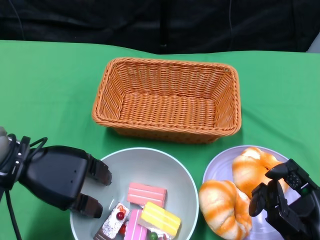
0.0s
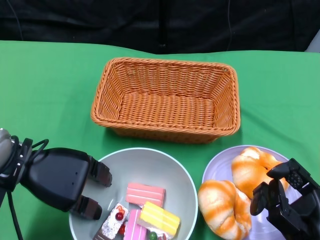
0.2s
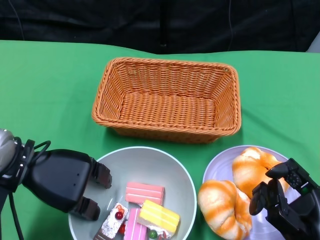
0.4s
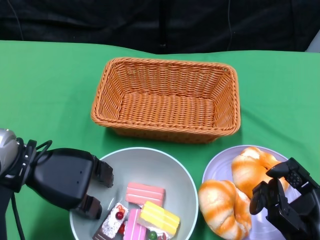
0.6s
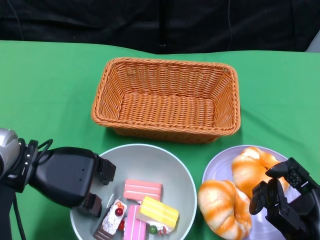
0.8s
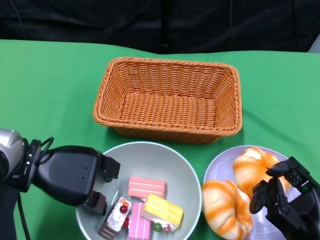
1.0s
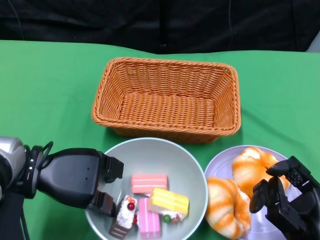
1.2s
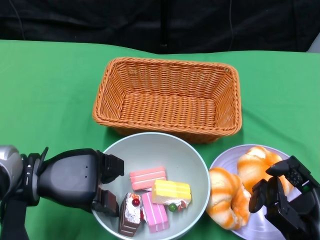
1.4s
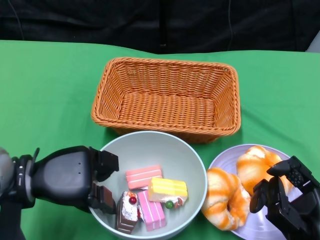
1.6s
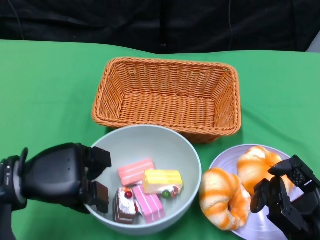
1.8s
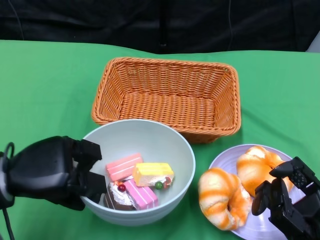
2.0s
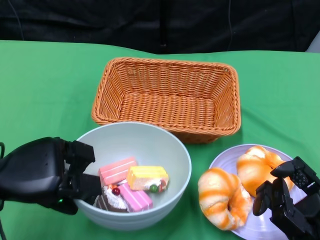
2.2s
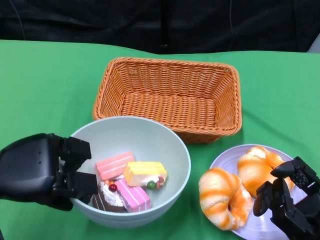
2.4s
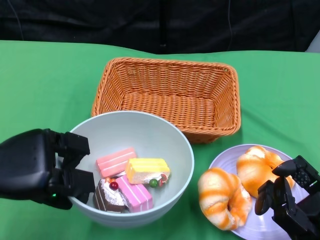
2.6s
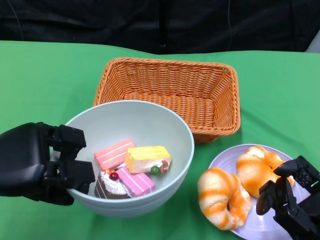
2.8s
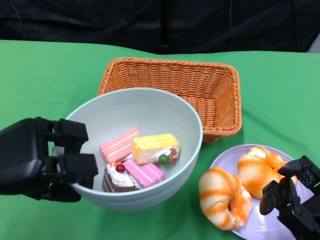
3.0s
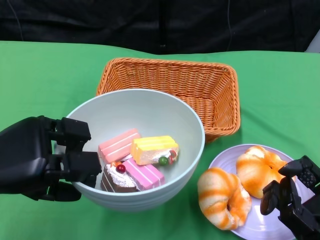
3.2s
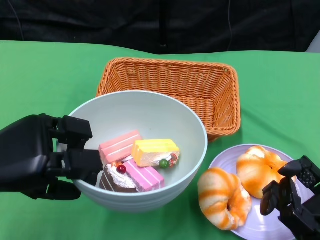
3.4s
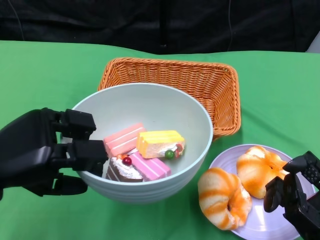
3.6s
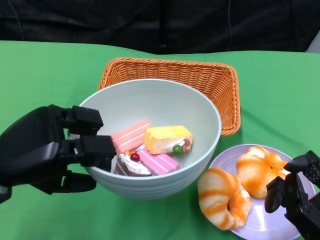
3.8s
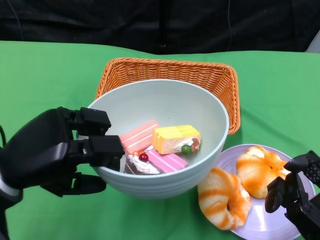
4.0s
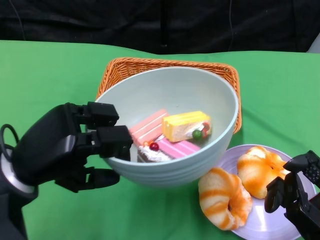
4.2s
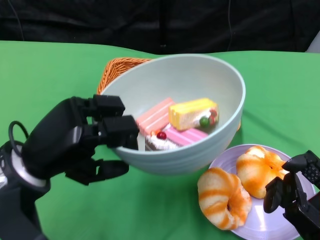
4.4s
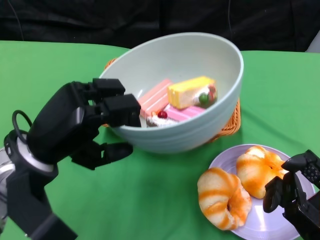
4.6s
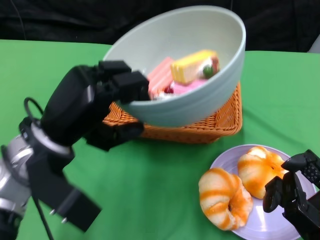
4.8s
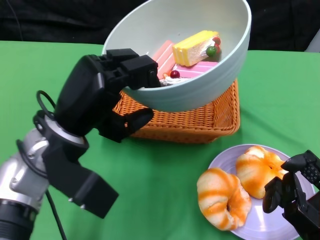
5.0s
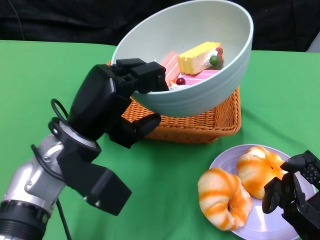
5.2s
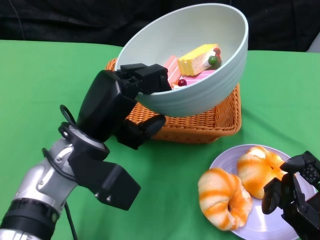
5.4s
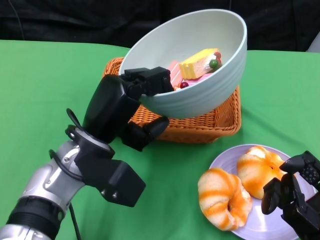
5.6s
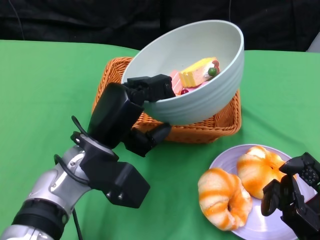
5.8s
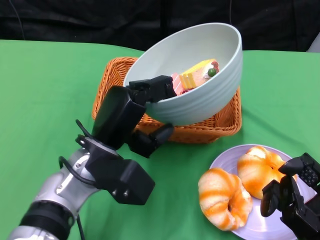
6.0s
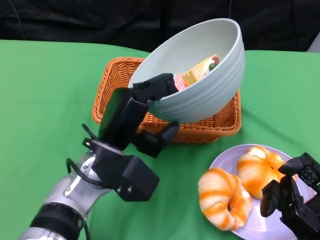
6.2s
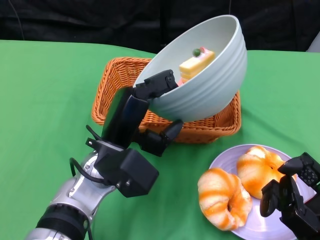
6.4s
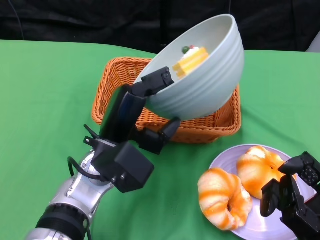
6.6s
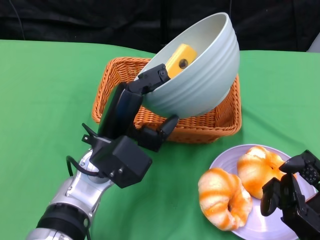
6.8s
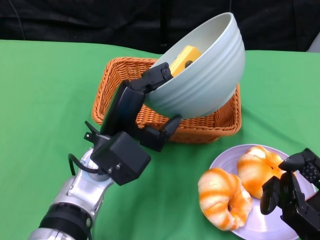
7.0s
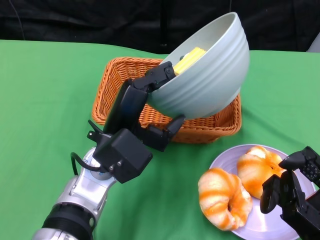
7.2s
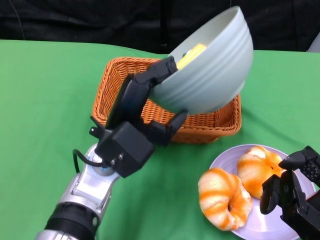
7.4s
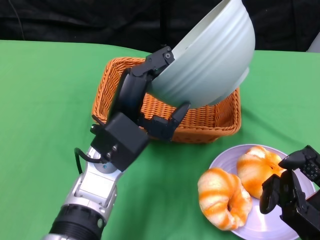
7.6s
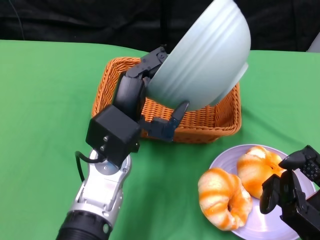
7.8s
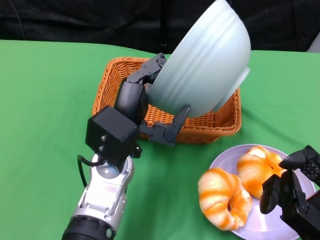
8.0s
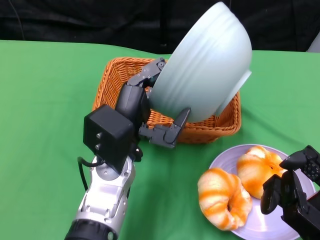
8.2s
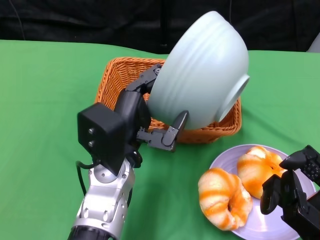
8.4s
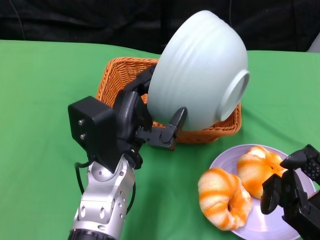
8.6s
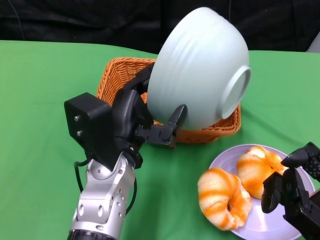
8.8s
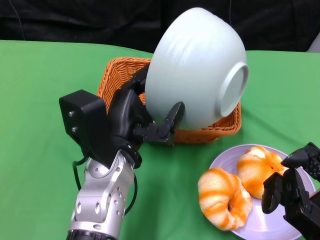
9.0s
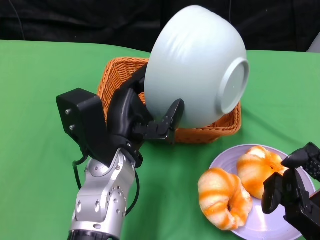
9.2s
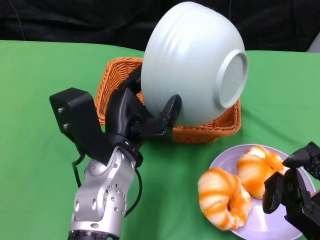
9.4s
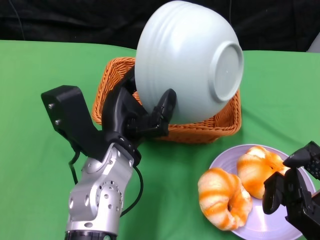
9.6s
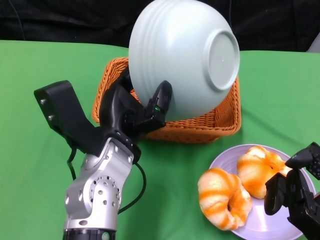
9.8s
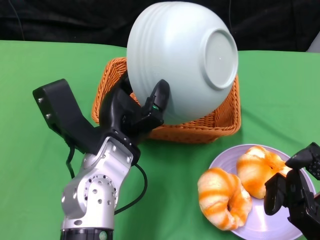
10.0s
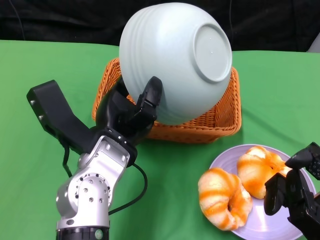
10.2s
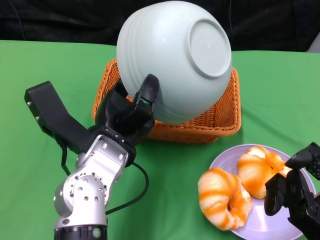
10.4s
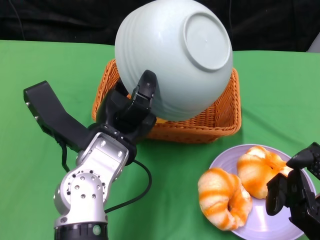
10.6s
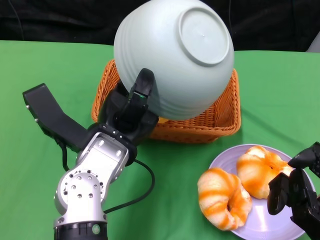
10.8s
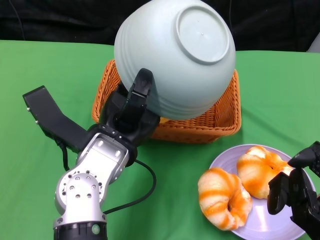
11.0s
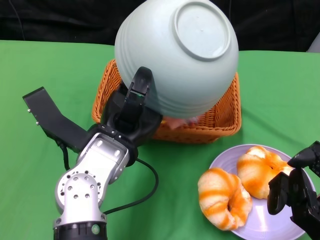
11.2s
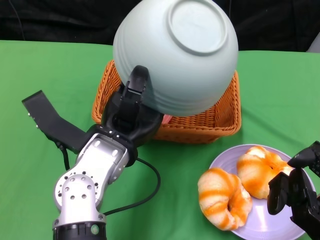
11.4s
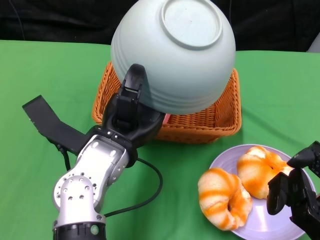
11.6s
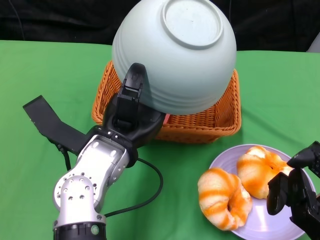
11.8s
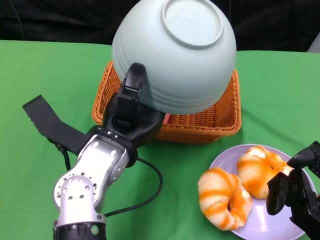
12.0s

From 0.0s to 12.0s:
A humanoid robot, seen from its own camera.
From 1.6s to 3.0s: The left hand travels upward by roughly 10 cm.
From 3.0s to 4.4s: The left hand goes about 5 cm to the right.
From 4.4s to 6.0s: The left hand goes roughly 10 cm to the right.

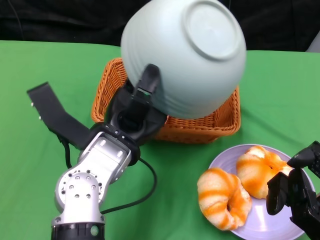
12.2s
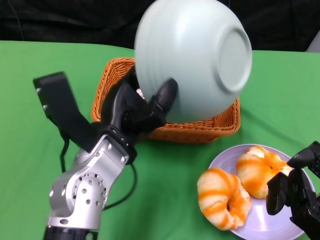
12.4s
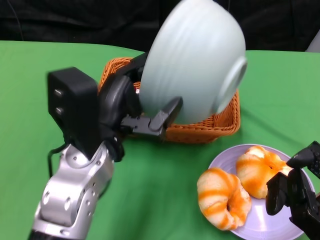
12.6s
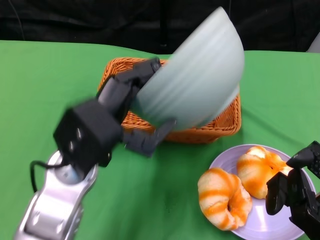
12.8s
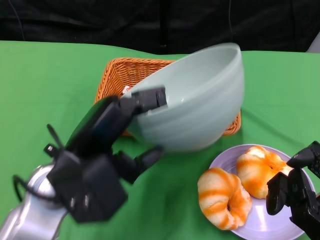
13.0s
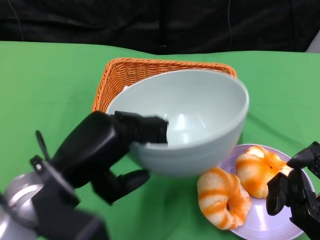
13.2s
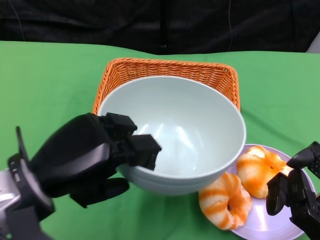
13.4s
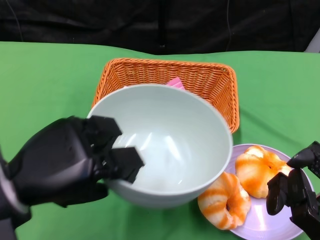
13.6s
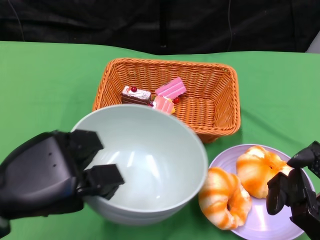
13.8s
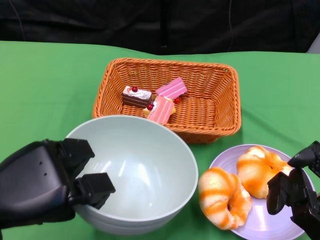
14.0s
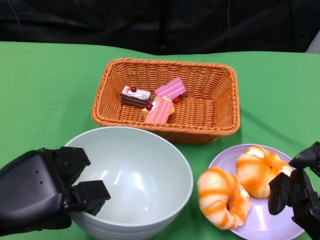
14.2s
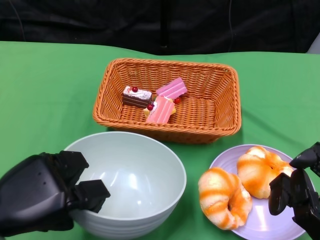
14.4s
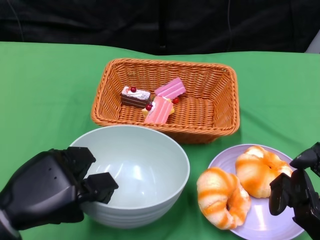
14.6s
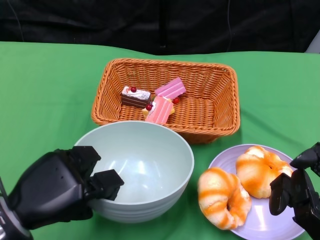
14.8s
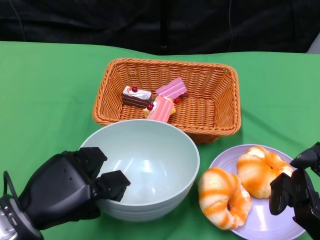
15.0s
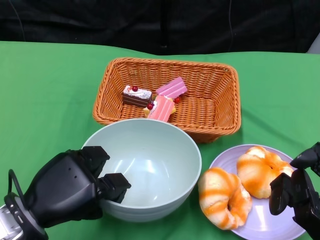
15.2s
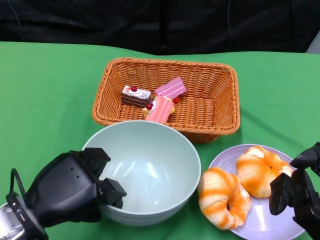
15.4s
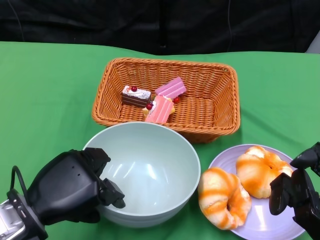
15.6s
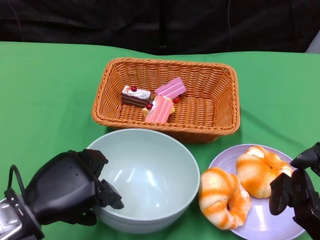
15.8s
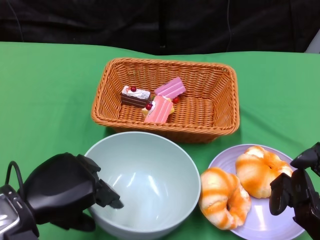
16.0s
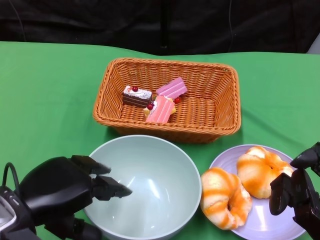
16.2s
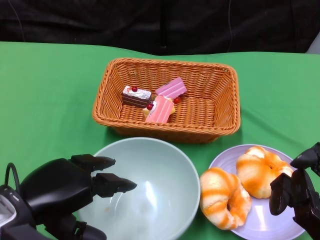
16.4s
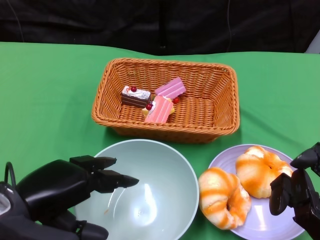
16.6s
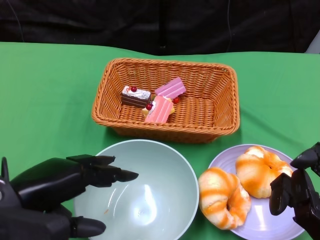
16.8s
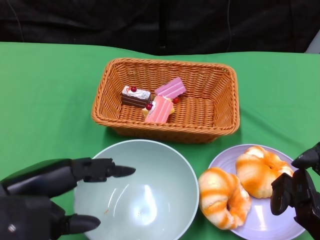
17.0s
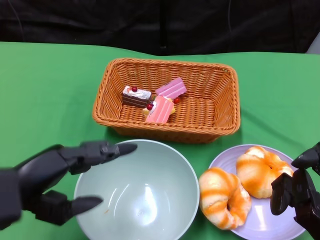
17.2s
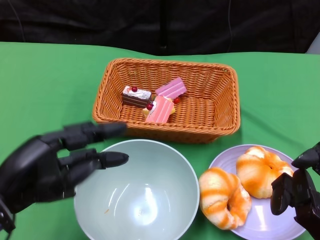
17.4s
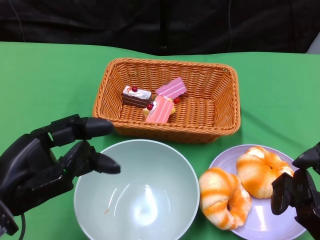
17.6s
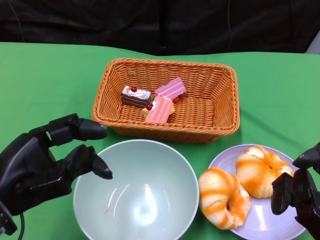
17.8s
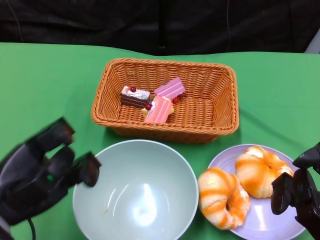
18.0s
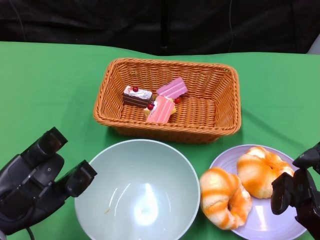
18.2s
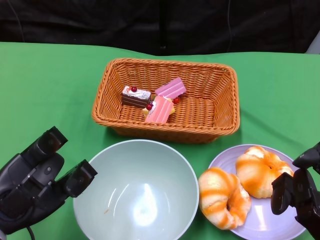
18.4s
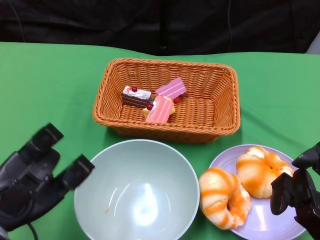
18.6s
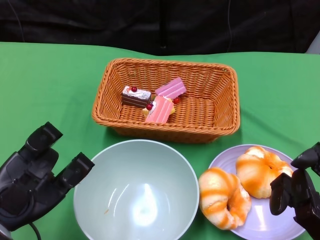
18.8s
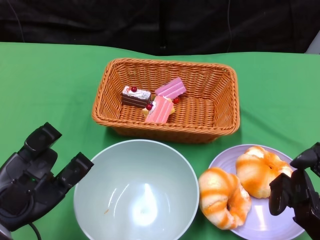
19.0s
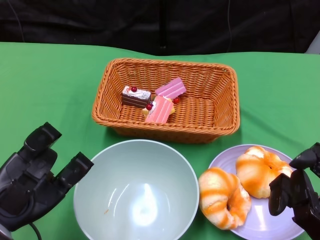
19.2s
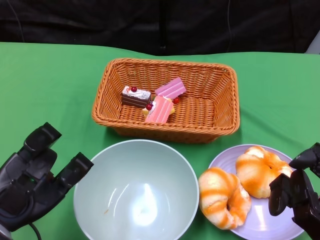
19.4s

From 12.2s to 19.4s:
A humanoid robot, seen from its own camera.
Step, from 12.4s to 16.6s: Place the bowl on the table with the left gripper.
From 12.2s to 13.6s: The left hand travels to the left and backward by approximately 15 cm.
From 13.6s to 15.0s: The left hand goes roughly 10 cm downward.
From 18.0s to 19.4s: The hands stay close to where they were, moving slightly.

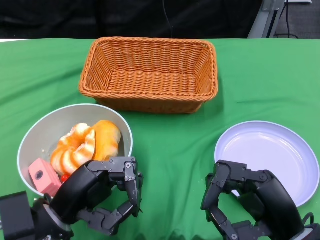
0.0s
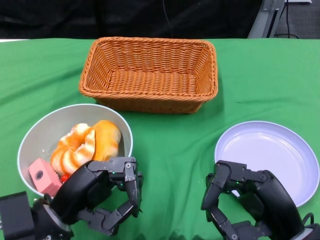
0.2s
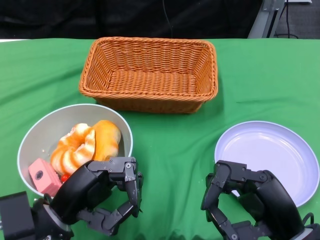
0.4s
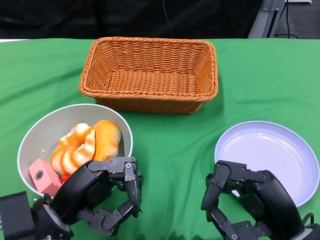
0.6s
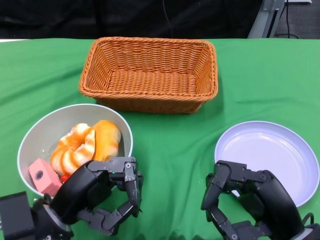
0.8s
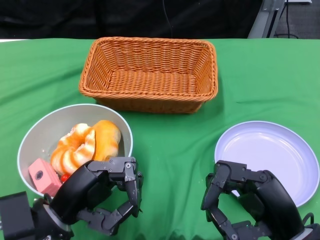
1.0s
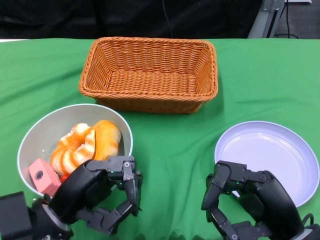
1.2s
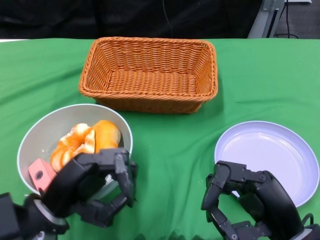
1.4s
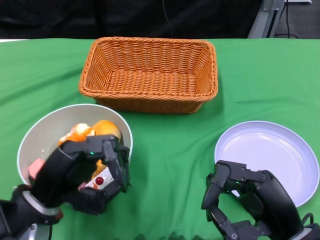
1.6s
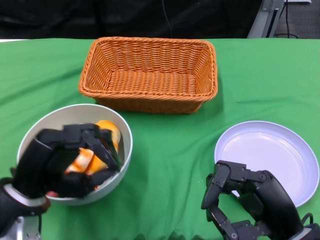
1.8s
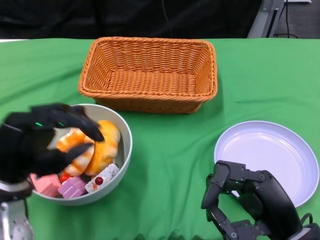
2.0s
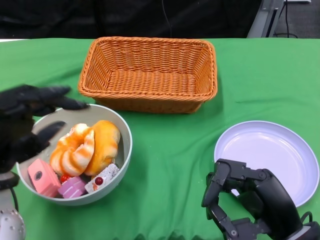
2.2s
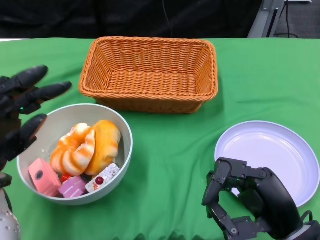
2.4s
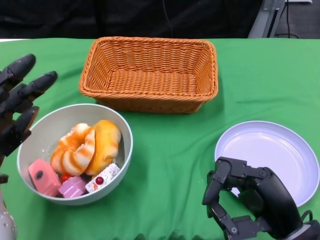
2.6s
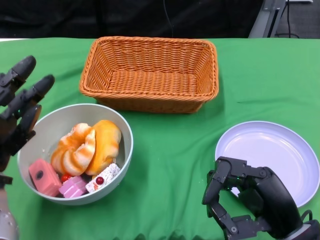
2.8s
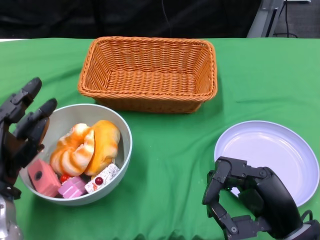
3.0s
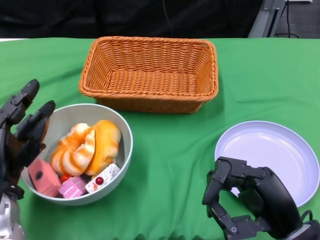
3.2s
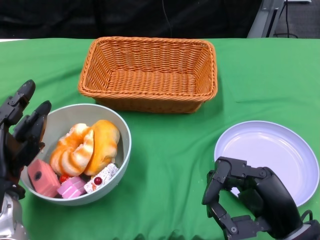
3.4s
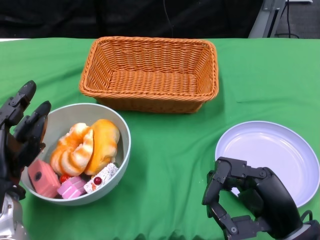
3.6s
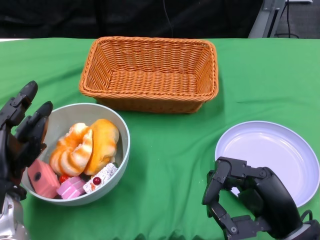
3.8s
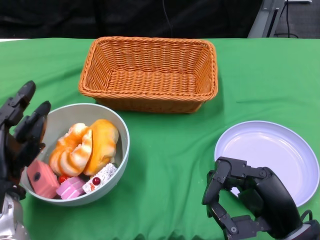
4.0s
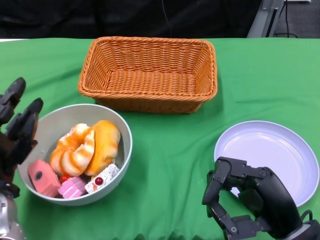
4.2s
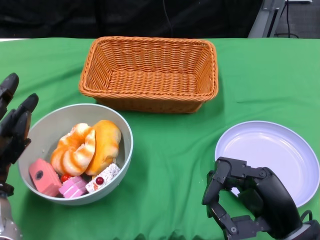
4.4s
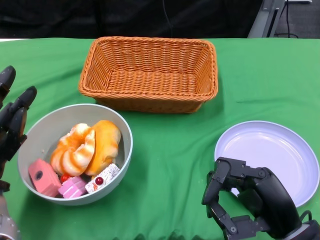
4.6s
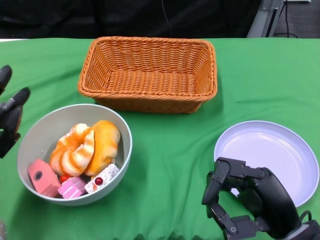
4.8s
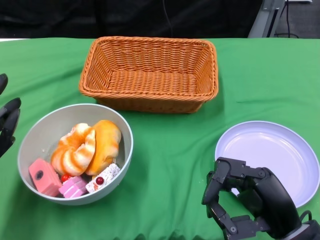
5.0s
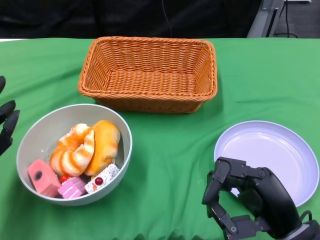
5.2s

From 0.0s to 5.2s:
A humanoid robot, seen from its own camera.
From 1.8s to 3.4s: The left hand shifts by approximately 5 cm.
From 3.4s to 5.2s: The hands stay close to where they were, moving slightly.
